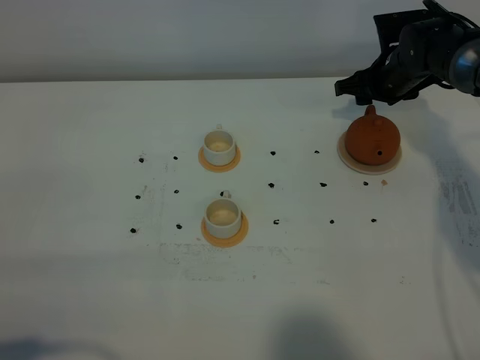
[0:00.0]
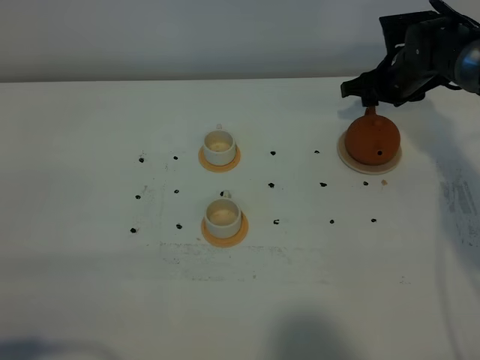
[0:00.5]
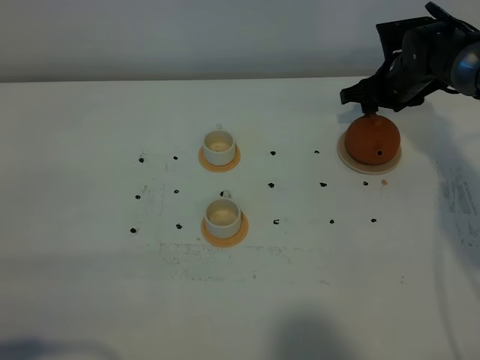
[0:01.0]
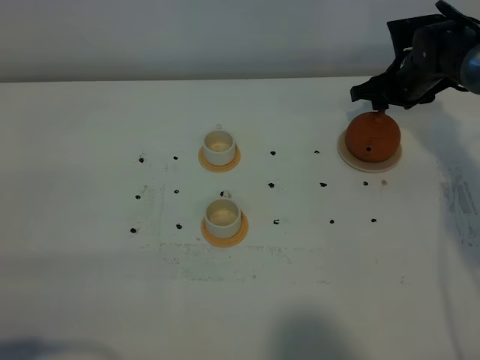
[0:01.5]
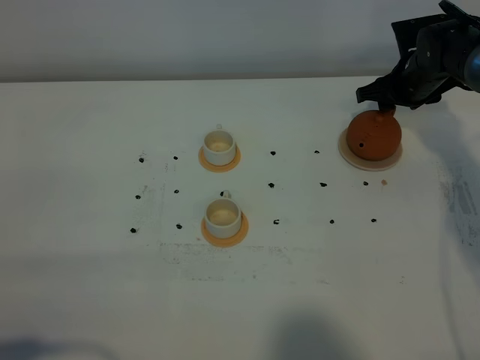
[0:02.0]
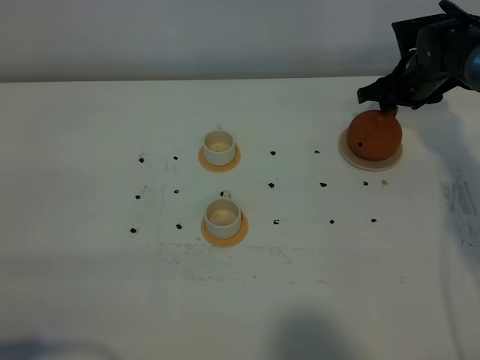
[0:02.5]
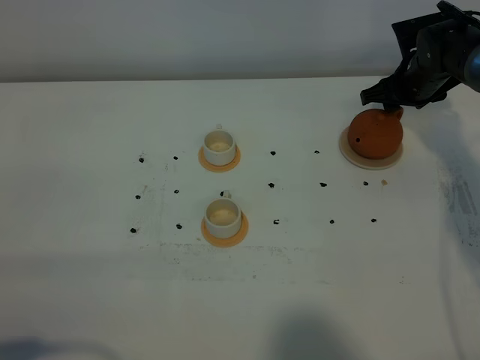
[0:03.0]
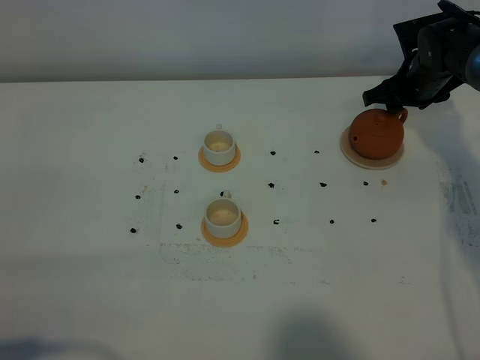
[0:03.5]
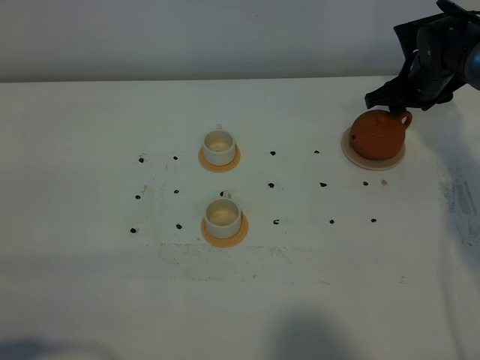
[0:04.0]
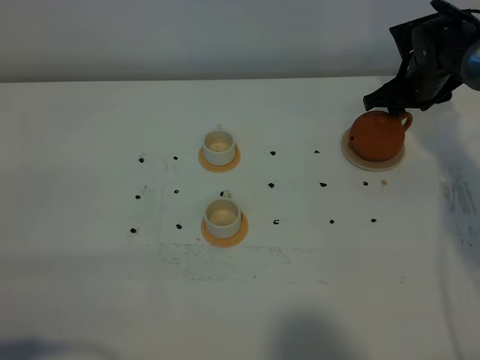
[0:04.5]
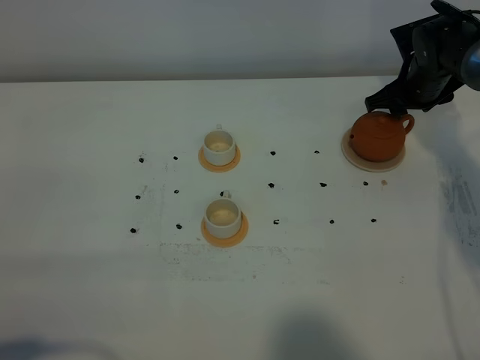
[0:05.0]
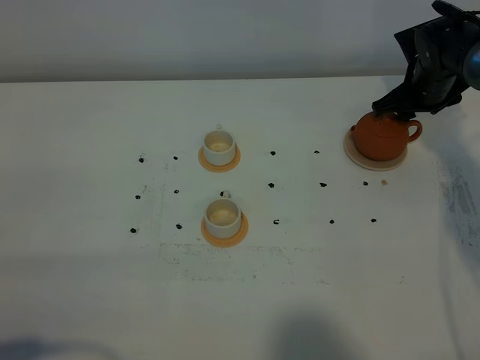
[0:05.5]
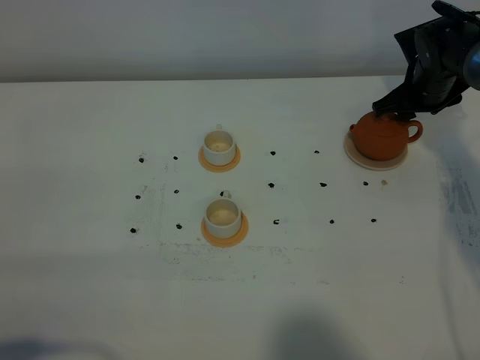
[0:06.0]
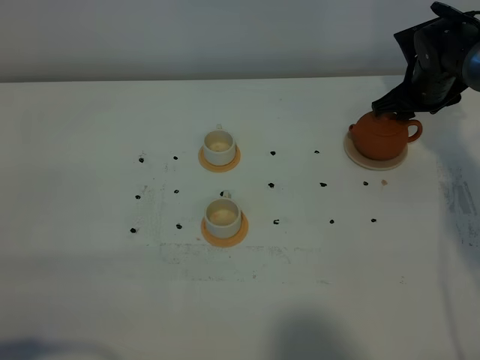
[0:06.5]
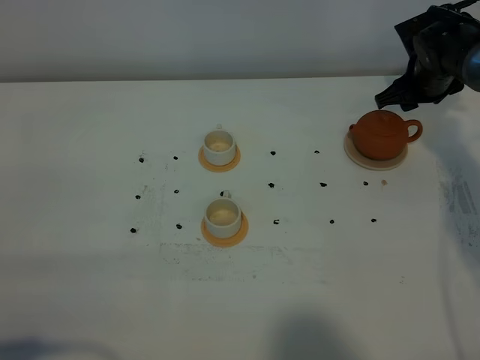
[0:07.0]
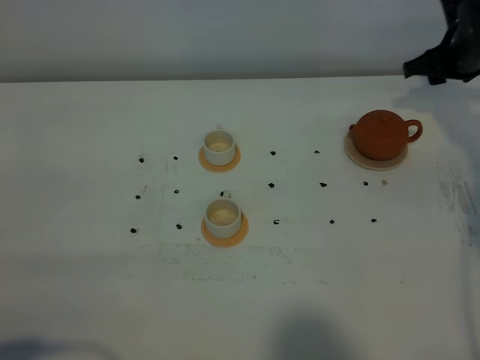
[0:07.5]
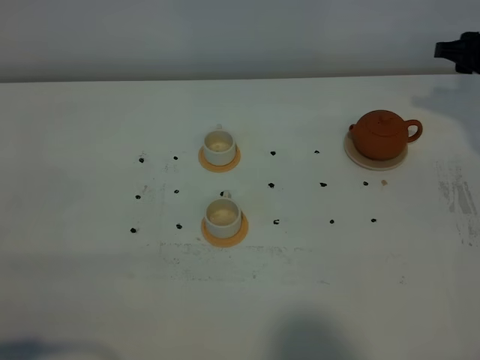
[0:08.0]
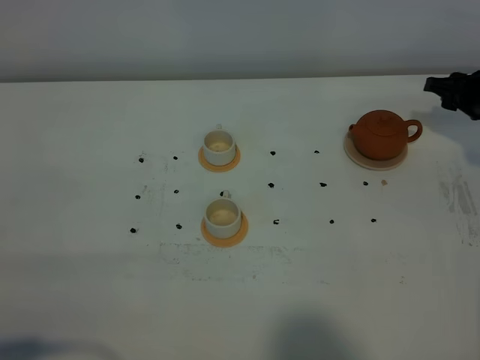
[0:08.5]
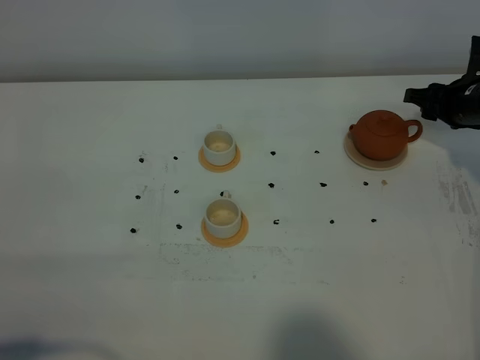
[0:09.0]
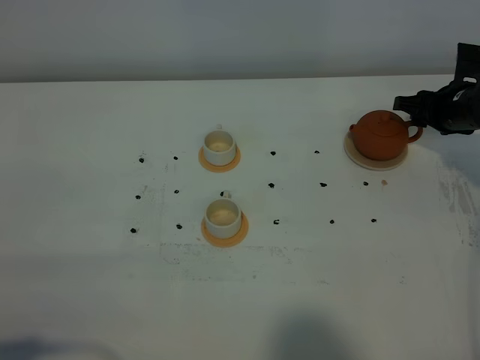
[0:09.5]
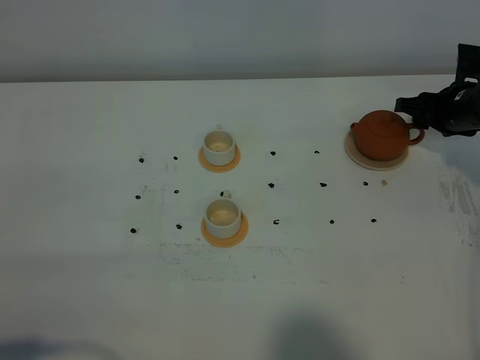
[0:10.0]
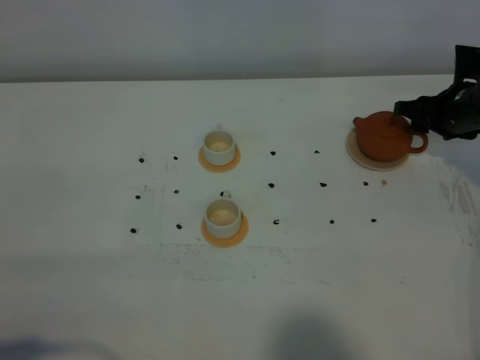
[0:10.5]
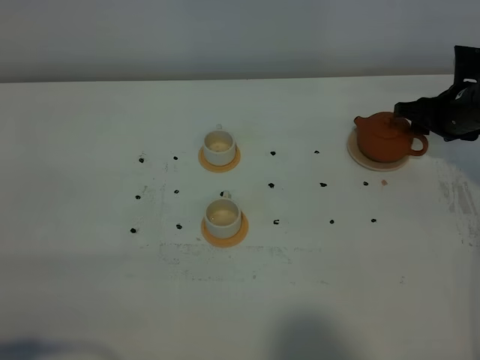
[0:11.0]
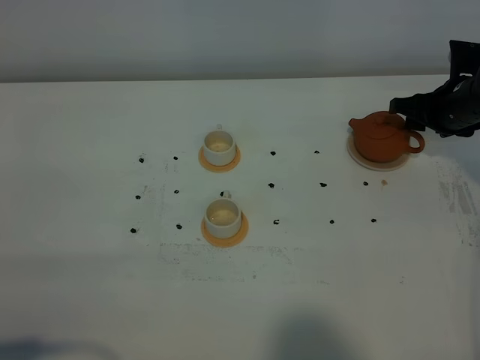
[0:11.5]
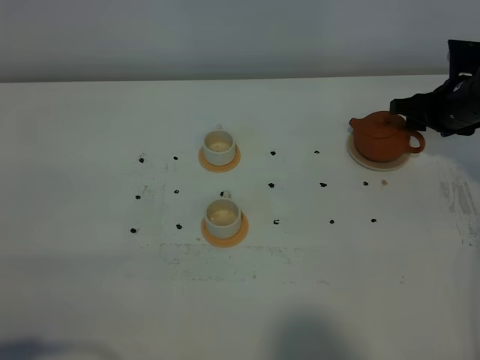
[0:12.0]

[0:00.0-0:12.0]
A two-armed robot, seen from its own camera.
Task of the whole recording: grasp the brown teapot and pour the tea into the two white teacups one by one, put the brown teapot back in its original place.
0:00.0 to 0:06.0: There are only small adjustments of the grippers.
0:06.0 to 0:08.0: The right gripper travels to the right and upward by about 10 cm.
0:08.0 to 0:10.0: The right gripper shifts about 10 cm downward.
0:10.0 to 0:12.0: The grippers make only small movements.

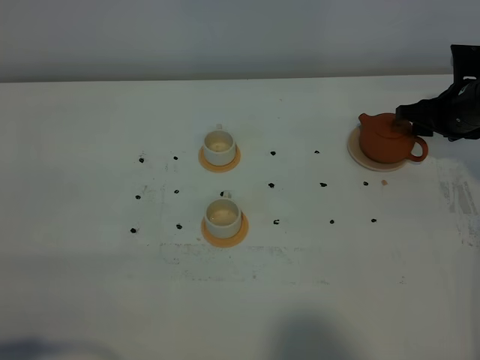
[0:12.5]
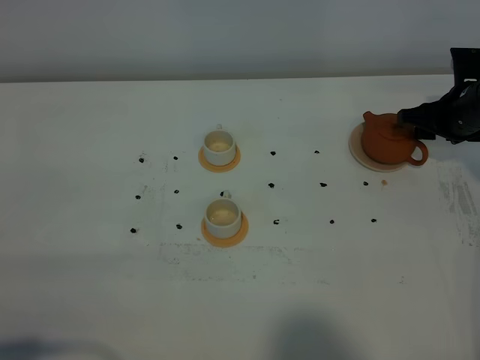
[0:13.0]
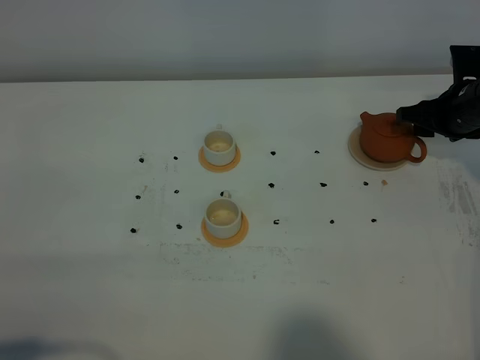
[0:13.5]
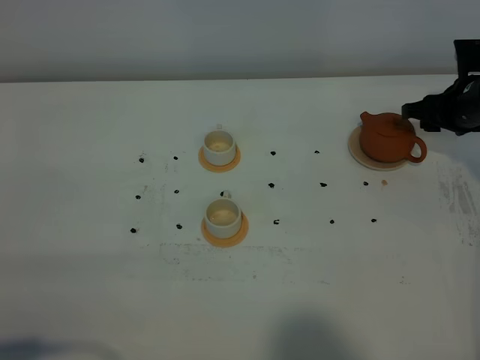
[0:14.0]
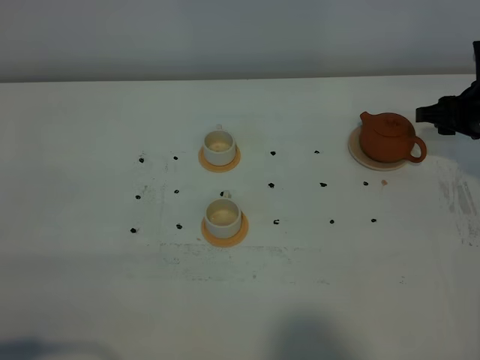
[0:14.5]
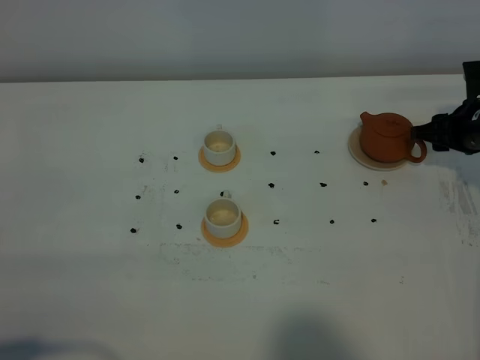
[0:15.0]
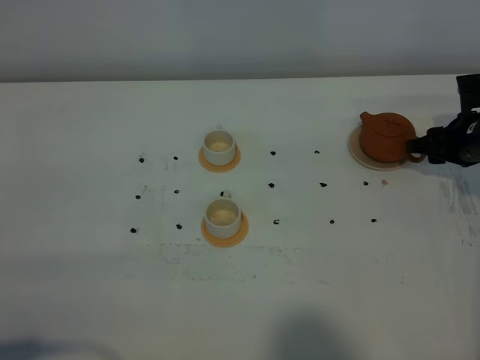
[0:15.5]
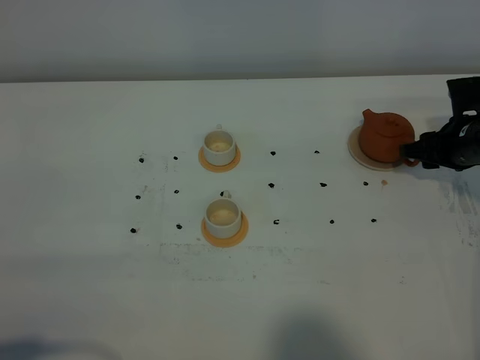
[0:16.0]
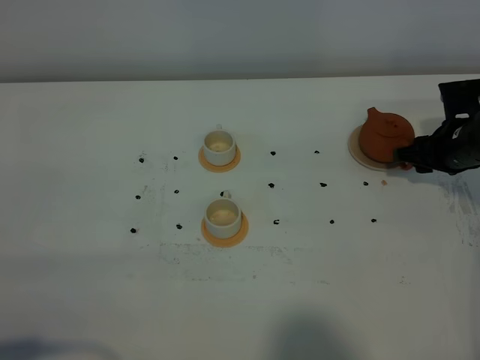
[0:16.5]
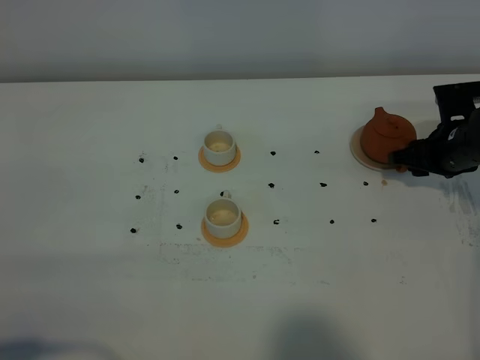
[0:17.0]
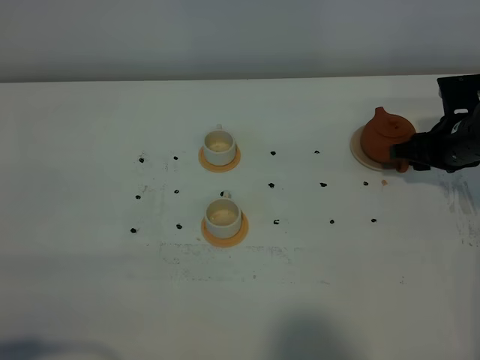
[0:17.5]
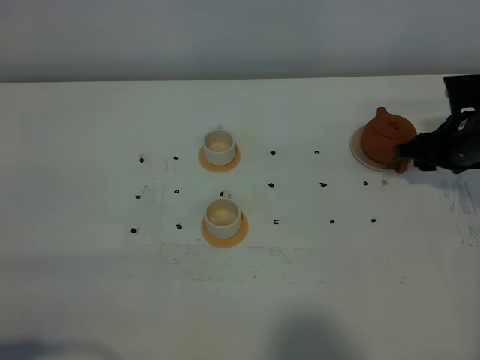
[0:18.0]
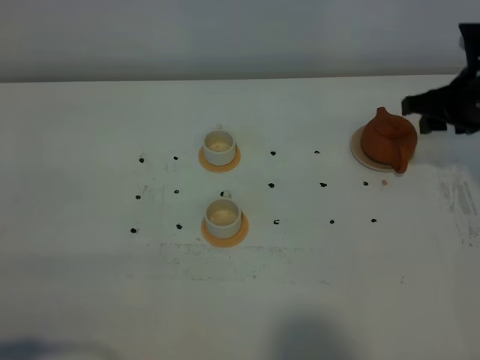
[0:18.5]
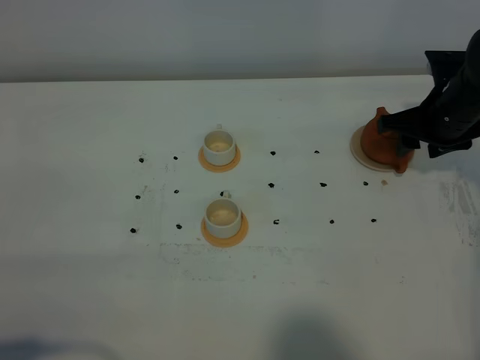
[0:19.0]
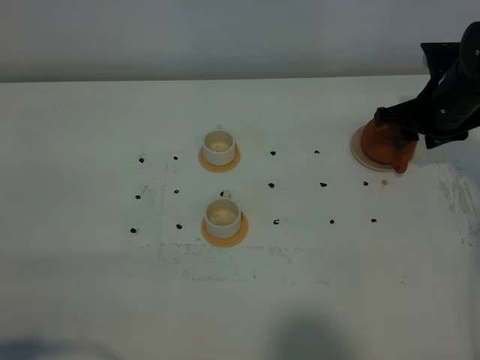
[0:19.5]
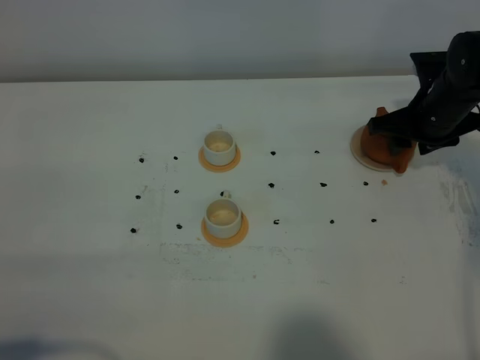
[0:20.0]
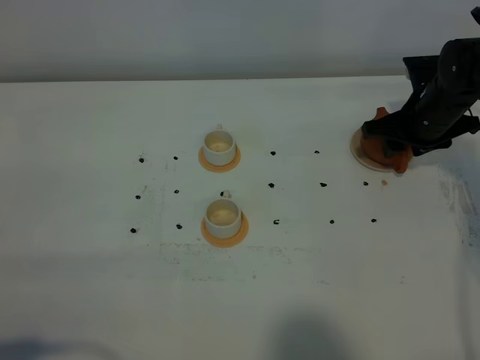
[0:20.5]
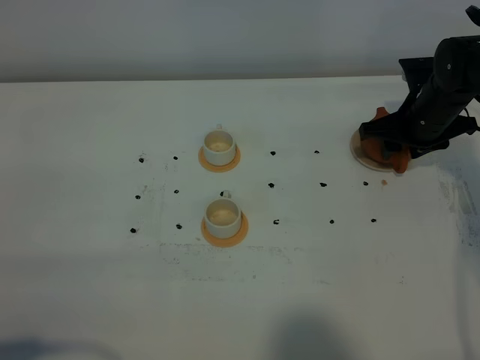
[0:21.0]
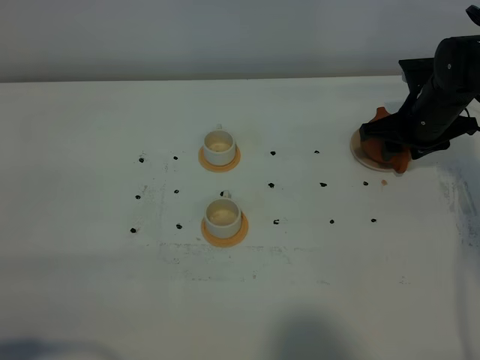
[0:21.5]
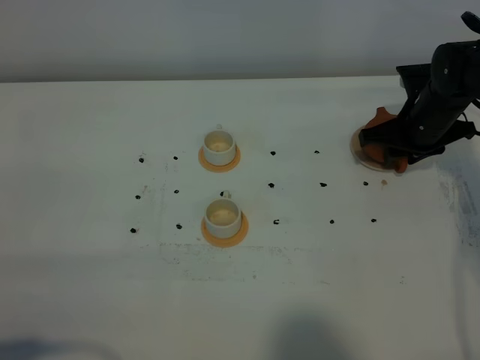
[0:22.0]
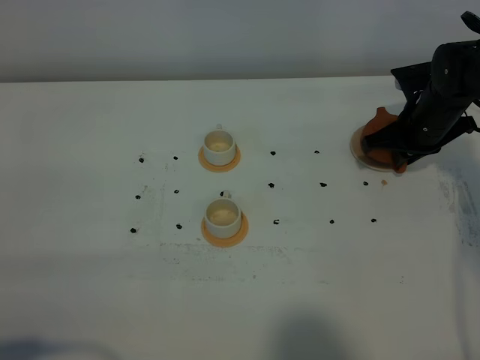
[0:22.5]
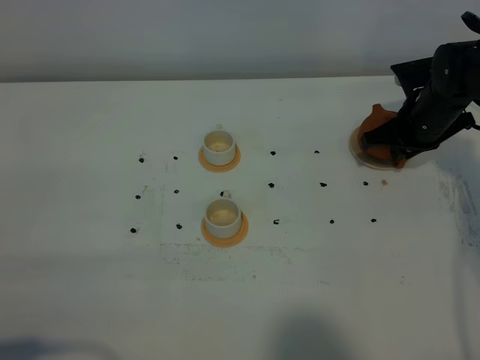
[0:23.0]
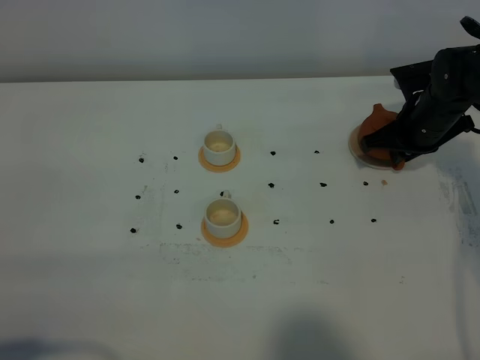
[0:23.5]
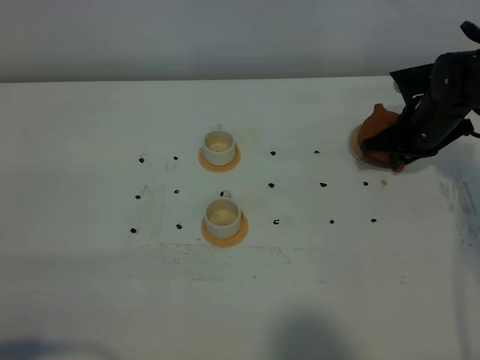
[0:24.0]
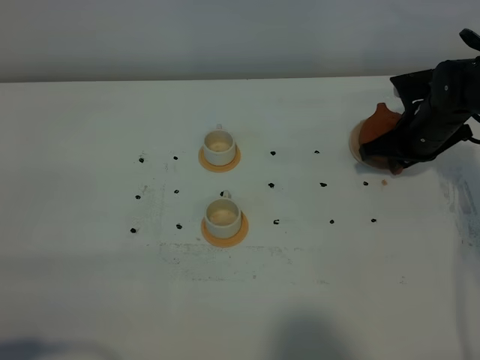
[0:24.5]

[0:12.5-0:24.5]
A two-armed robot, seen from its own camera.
Task of the whole recording: grasp the brown teapot and pour the tea into the two white teacups one by one, put the brown teapot back in its original place.
0:12.5 to 0:14.5: There are only small adjustments of the grippers.
0:14.5 to 0:16.5: The right gripper ends up some 5 cm from where it was.
0:16.5 to 0:18.5: The right gripper moves upward, some 10 cm.
0:18.5 to 0:20.5: The right gripper goes some 10 cm downward.
0:20.5 to 0:22.5: The right gripper closes its fingers.
0:22.5 to 0:24.5: The grippers move only a little.

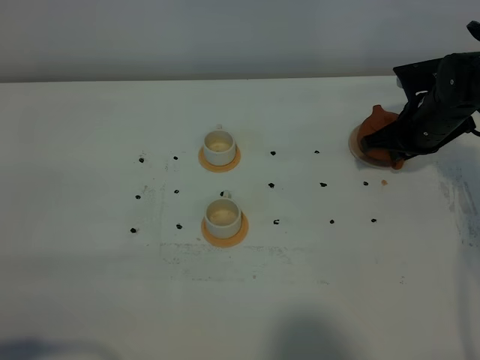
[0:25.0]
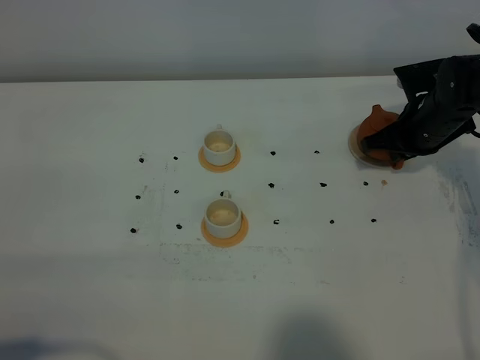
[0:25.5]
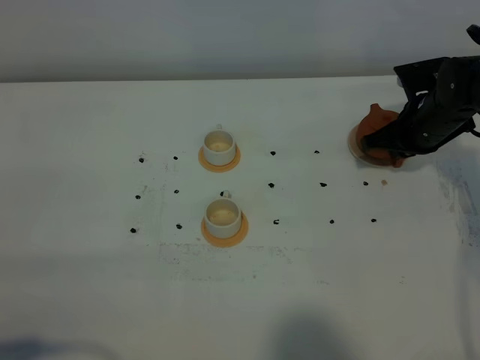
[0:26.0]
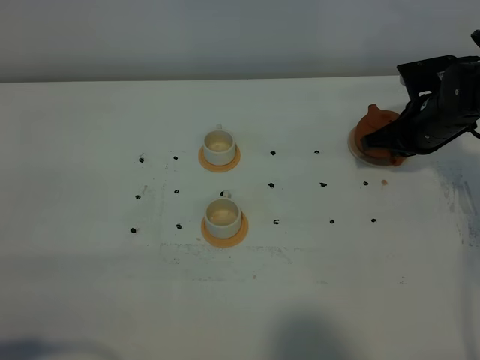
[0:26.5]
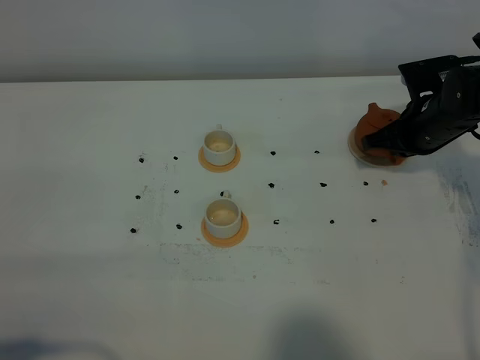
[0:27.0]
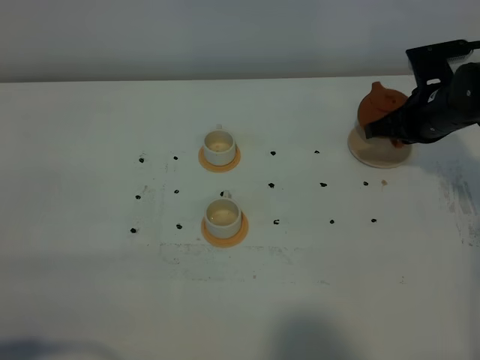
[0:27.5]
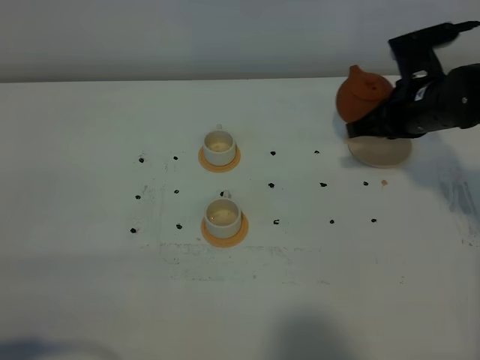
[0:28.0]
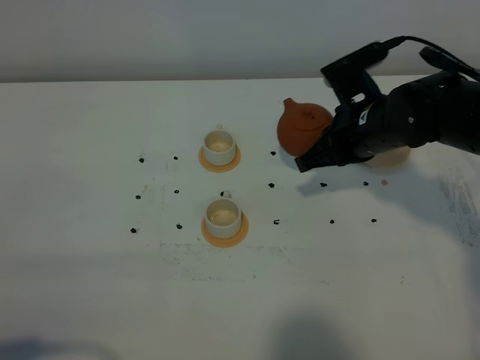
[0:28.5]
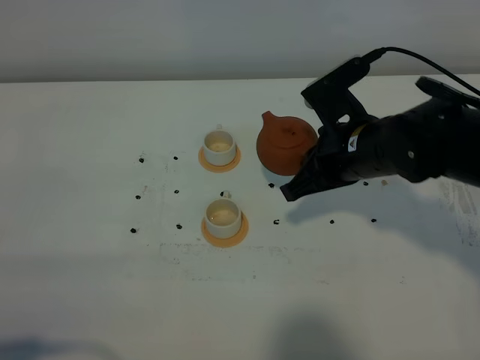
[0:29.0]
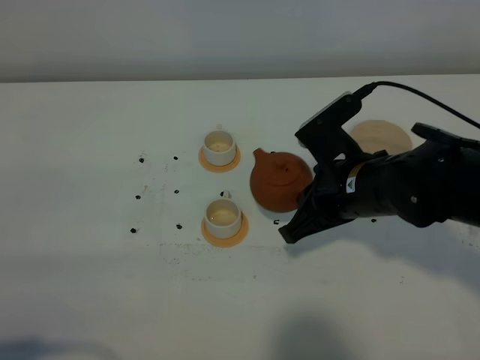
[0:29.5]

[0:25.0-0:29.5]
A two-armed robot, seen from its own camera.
Task of the whole recording: grasp the brown teapot and pour the tea into the two white teacups one by one, put the brown teapot back in its original place.
0:25.0 to 0:27.0: The grippers stay close to where they were, moving slightly.
0:27.0 to 0:29.5: The right gripper shifts about 20 cm backward and to the left.
